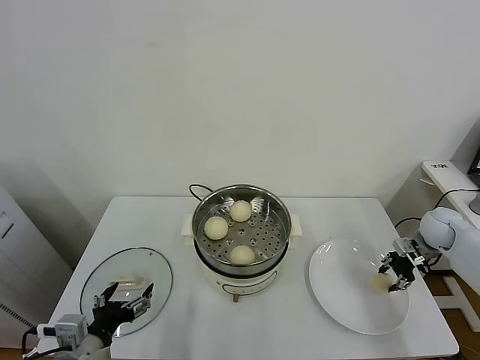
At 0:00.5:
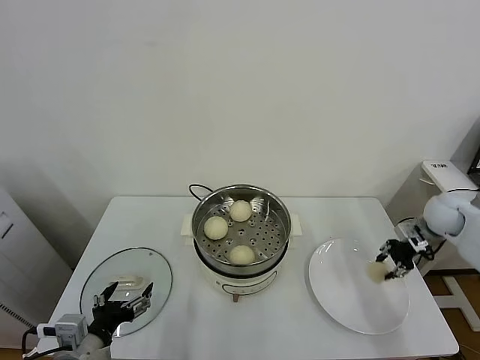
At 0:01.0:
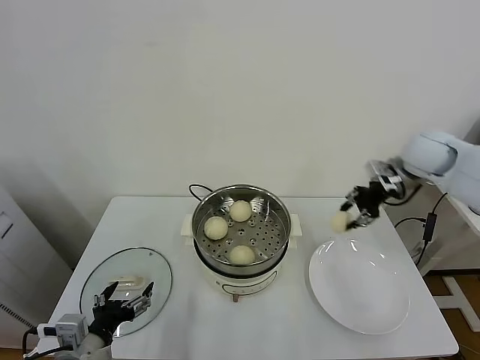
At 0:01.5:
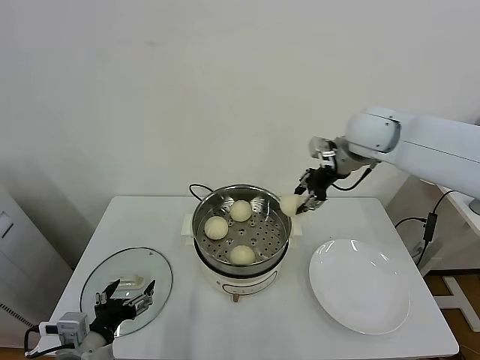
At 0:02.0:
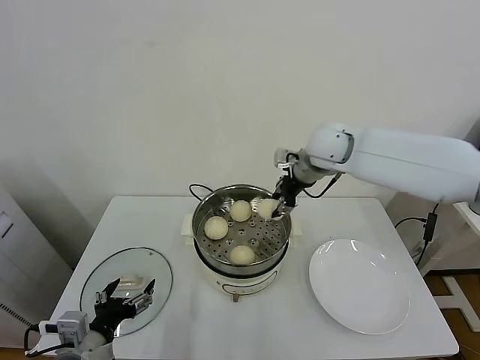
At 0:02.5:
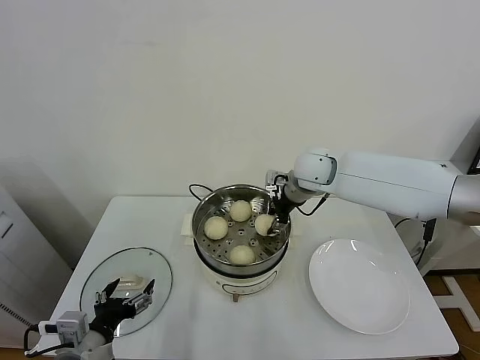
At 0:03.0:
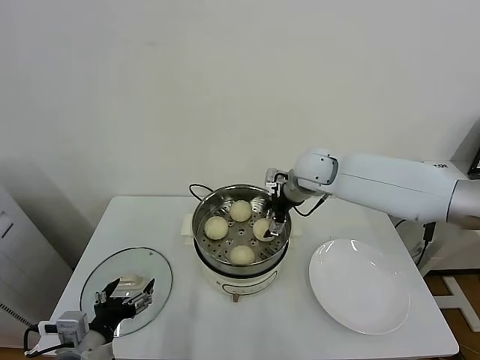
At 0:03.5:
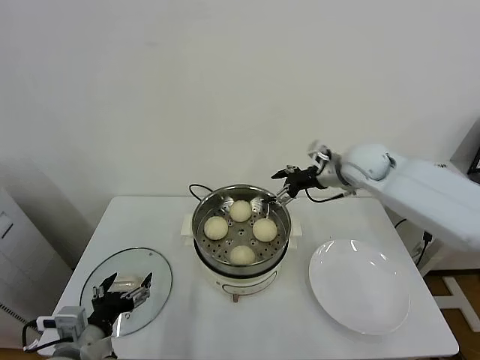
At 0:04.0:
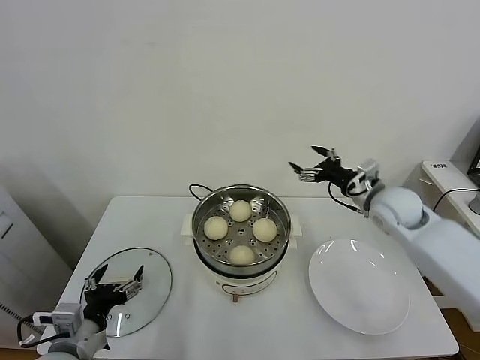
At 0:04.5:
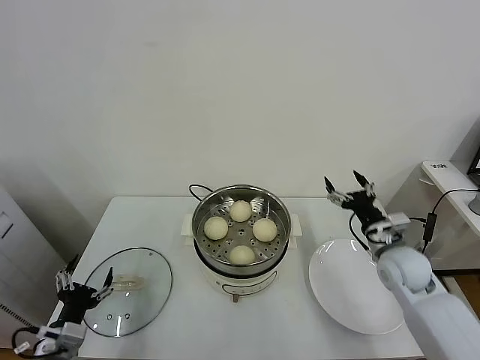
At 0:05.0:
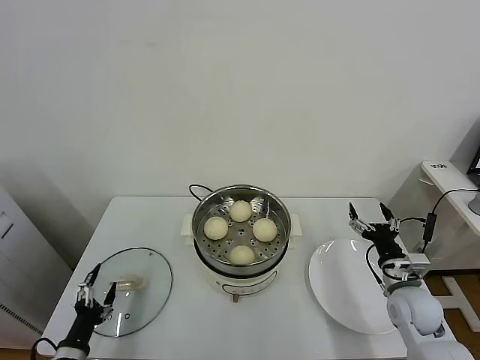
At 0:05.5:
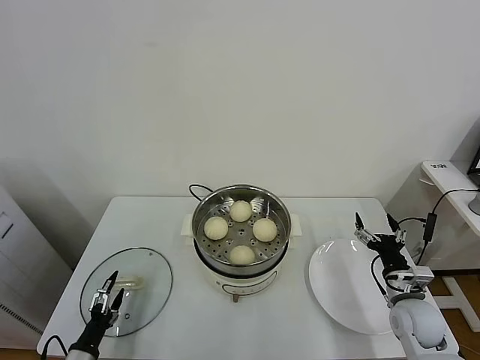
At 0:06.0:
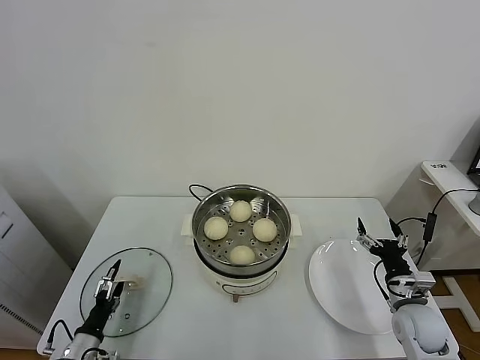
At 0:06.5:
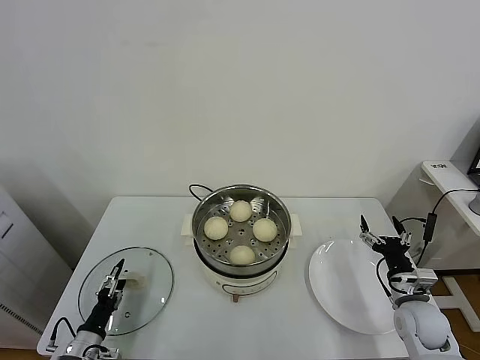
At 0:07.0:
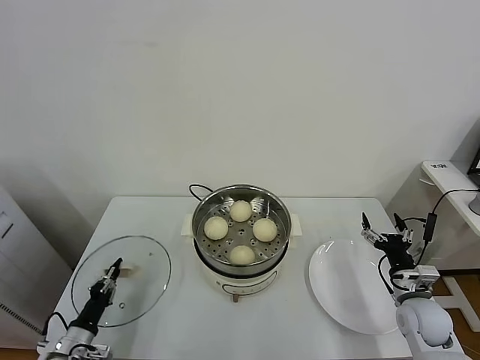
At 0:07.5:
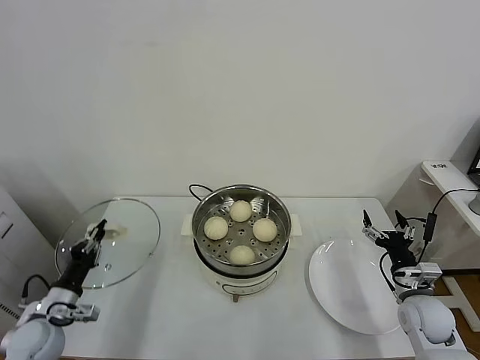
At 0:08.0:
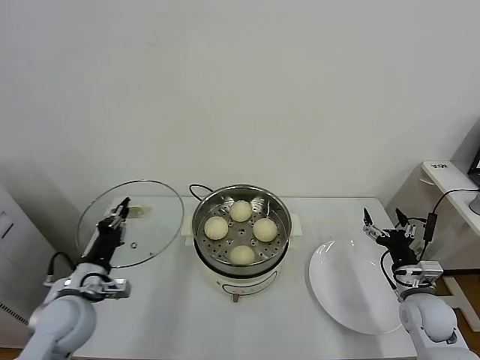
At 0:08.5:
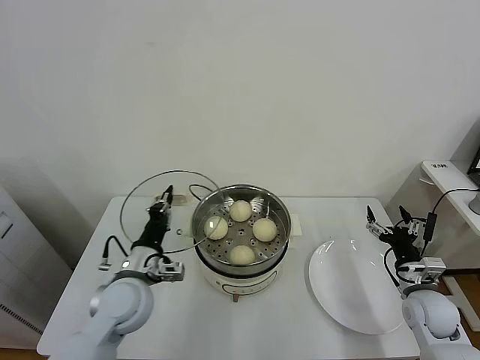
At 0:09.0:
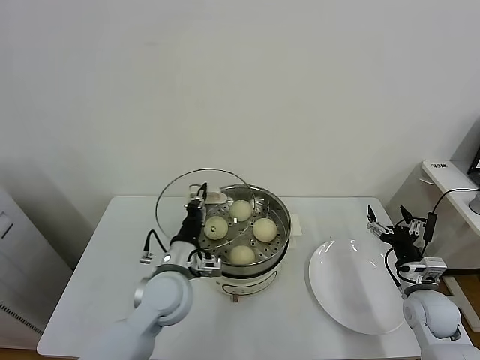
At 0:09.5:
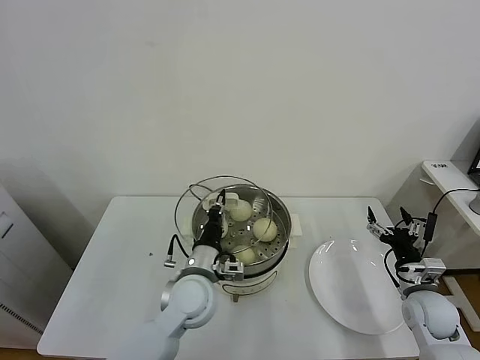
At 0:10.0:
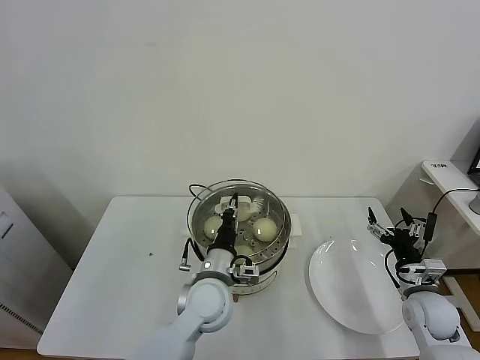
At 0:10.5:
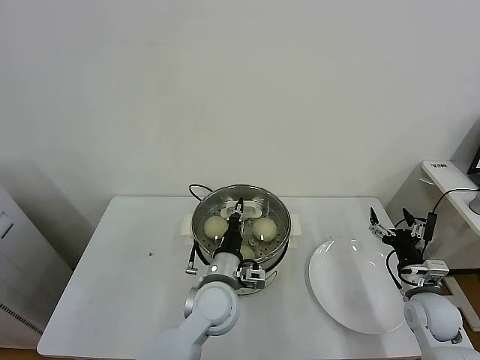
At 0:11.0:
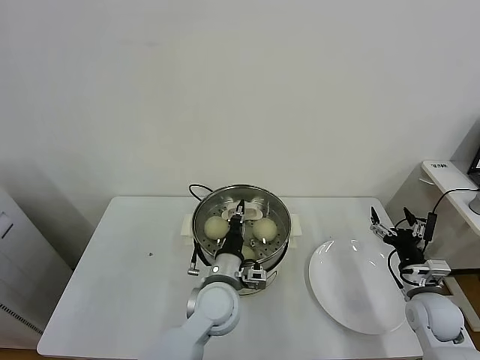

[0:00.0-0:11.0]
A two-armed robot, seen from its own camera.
Task of the whole recording: take steamed baozi put them in steamer.
Step, 0:00.5 to 0:03.0: Place the baozi on the steamer with right gripper.
Step, 0:03.5 to 0:07.0: Grasp the pot lid with left gripper.
0:00.0 to 0:02.0: The right gripper is displaced to the left and upward by about 40 cm.
0:02.0 to 0:03.5: The right gripper heads to the right, covering approximately 10 cm, and opens.
0:03.5 to 0:05.5: The right gripper goes some 35 cm downward, backward and to the right; the left gripper shifts roughly 20 cm downward and to the left.
0:05.5 to 0:07.5: The left gripper shifts about 10 cm upward and forward, and closes.
0:07.5 to 0:09.0: The left gripper moves to the right, roughly 25 cm.
0:09.0 to 0:11.0: The left gripper heads to the right, covering approximately 10 cm.

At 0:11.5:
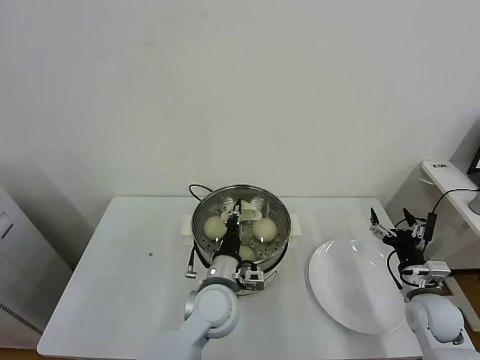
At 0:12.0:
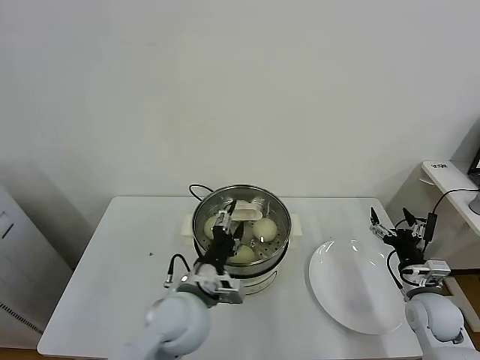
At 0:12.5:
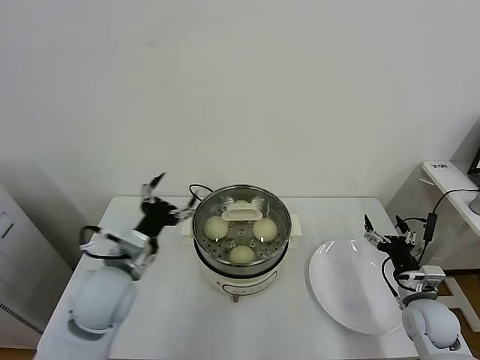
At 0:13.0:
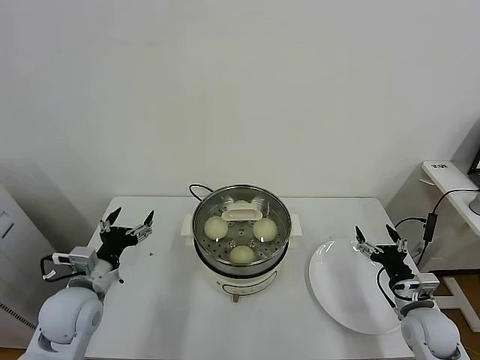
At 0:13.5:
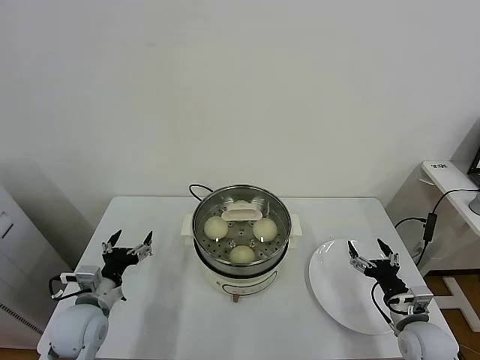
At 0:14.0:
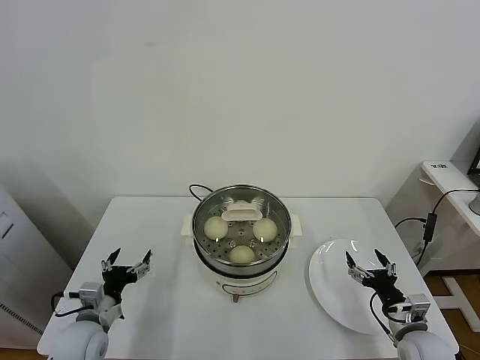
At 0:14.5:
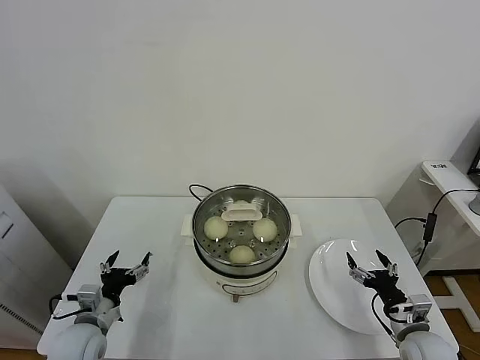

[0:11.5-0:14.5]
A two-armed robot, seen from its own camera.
Task of the whole recording: take steamed baozi put them in steamer.
0:11.5 to 0:13.0: The left gripper shifts roughly 25 cm to the left, and opens up.
0:13.0 to 0:14.5: The left gripper travels downward by some 10 cm; the right gripper shifts by some 5 cm.
